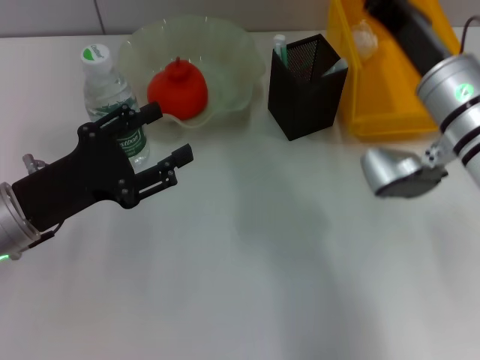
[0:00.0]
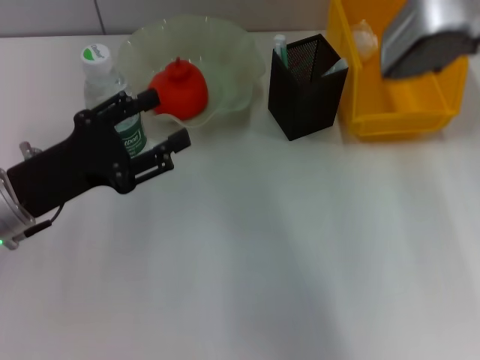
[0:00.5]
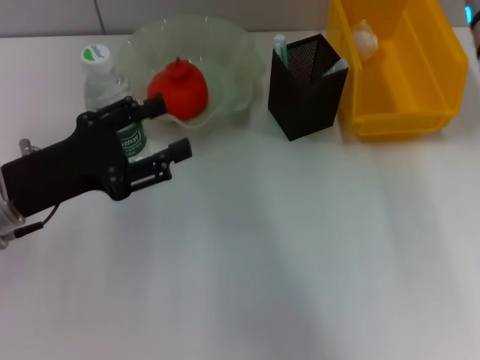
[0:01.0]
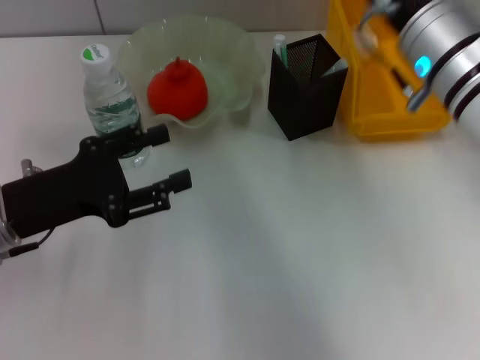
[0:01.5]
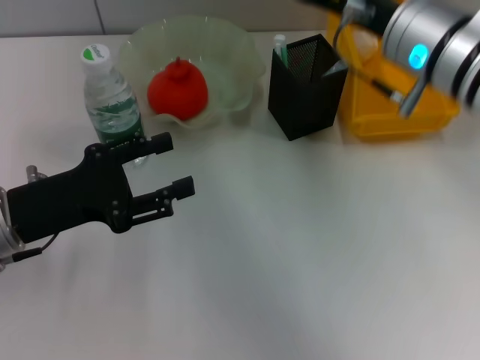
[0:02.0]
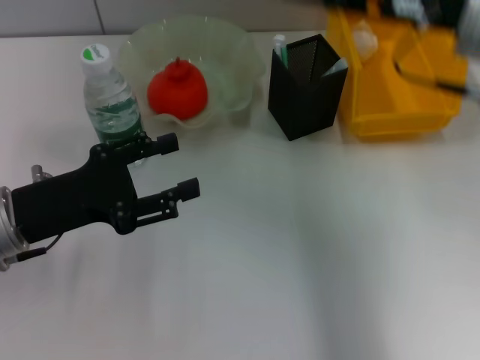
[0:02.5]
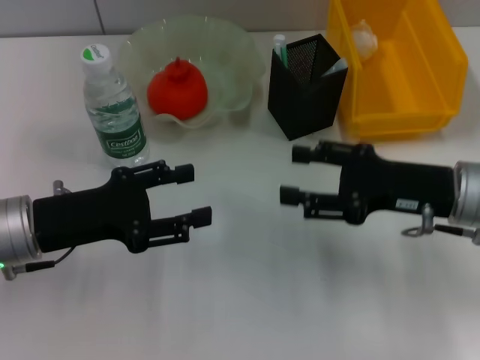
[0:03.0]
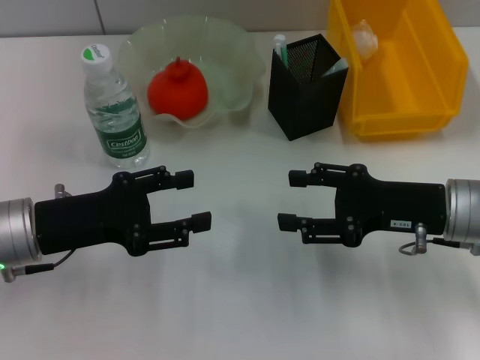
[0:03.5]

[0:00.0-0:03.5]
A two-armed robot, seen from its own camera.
0:00.0 to 0:02.0: The right gripper goes roughly 10 cm upward, and opens its fingers.
0:02.0 to 0:03.5: The right gripper is displaced downward and to the right by some 15 cm.

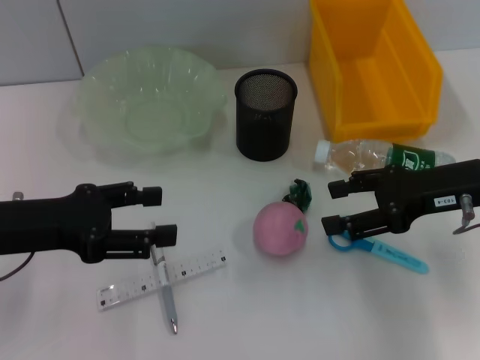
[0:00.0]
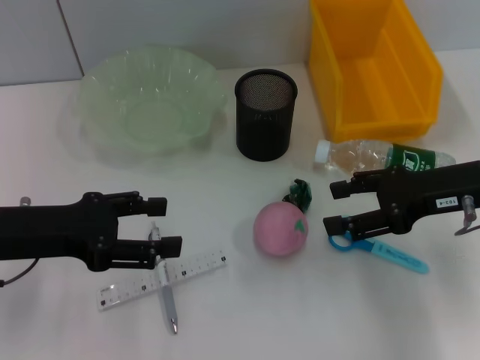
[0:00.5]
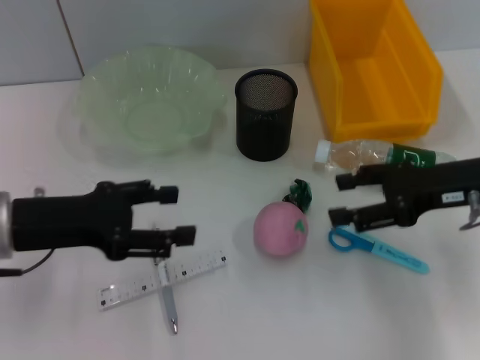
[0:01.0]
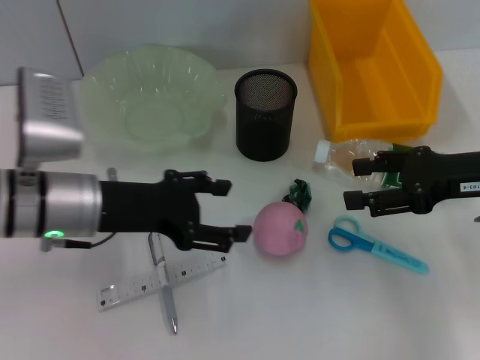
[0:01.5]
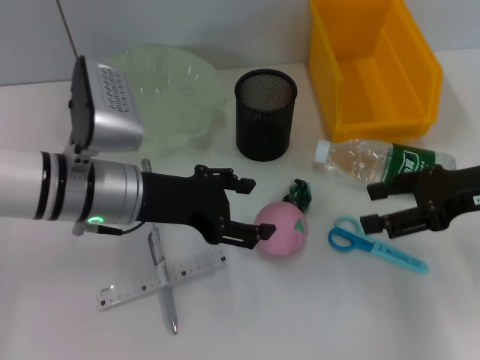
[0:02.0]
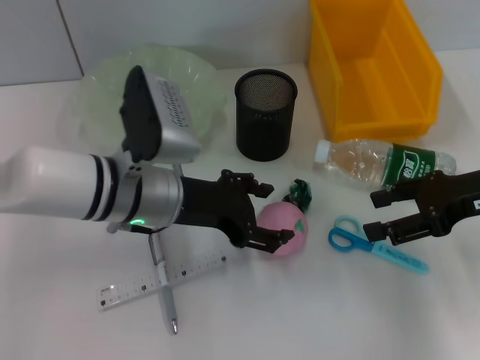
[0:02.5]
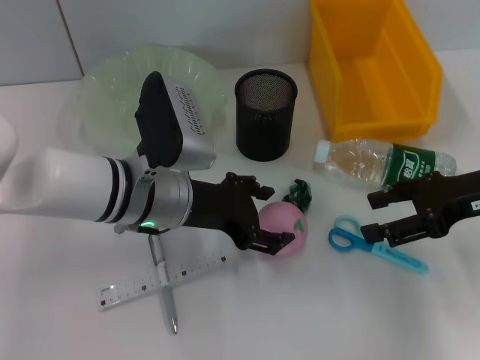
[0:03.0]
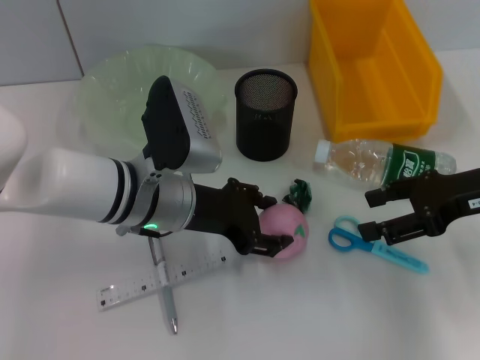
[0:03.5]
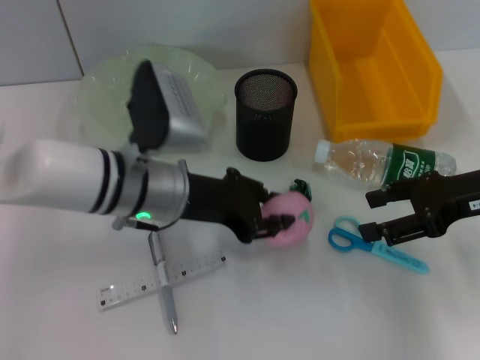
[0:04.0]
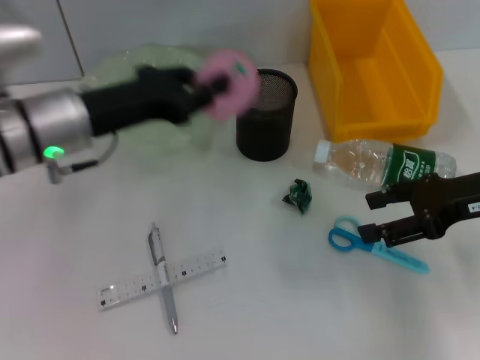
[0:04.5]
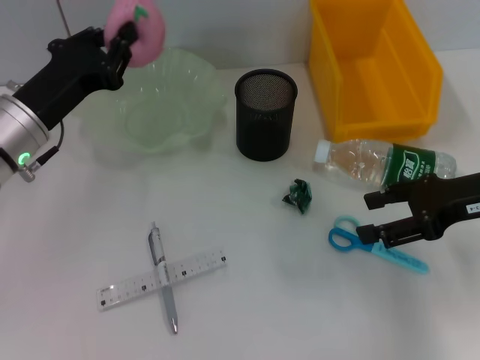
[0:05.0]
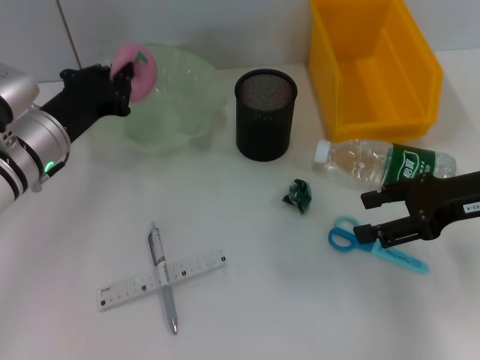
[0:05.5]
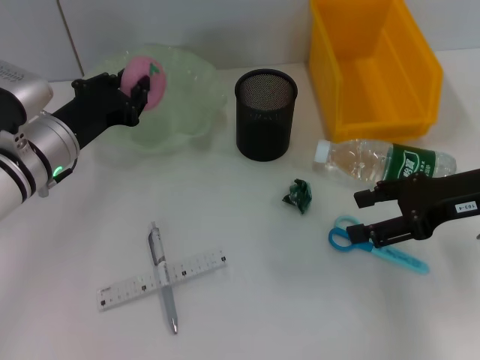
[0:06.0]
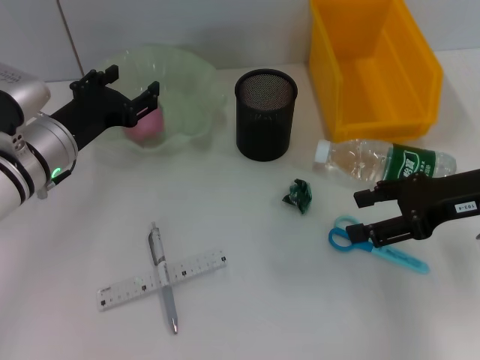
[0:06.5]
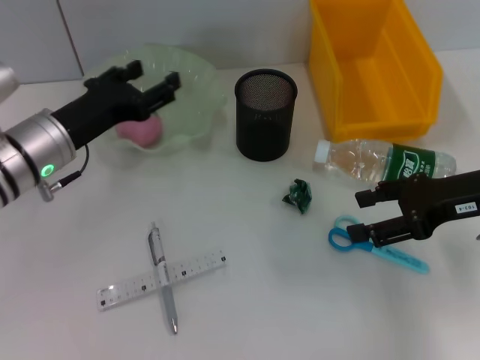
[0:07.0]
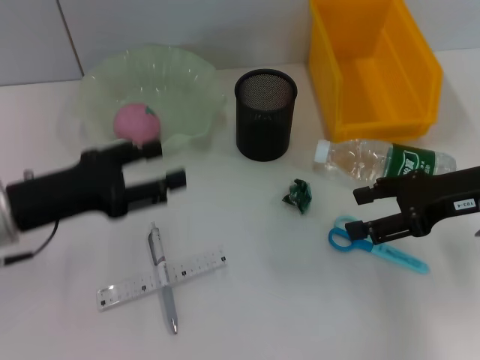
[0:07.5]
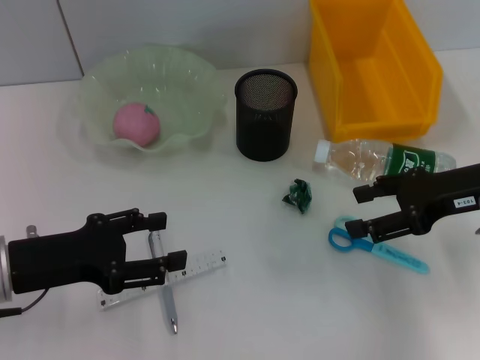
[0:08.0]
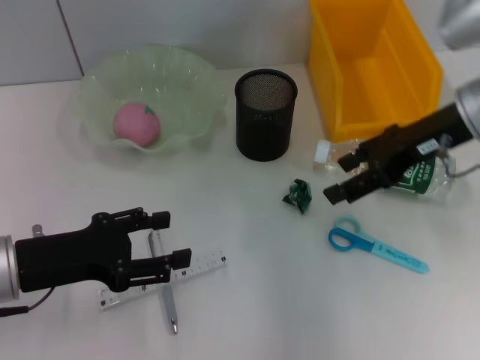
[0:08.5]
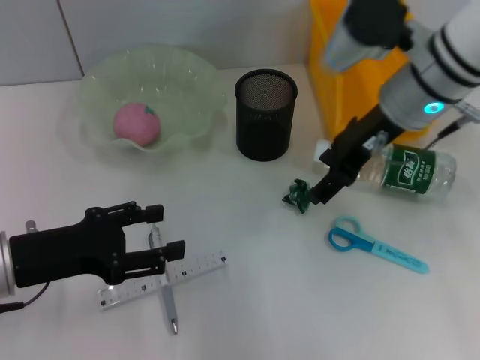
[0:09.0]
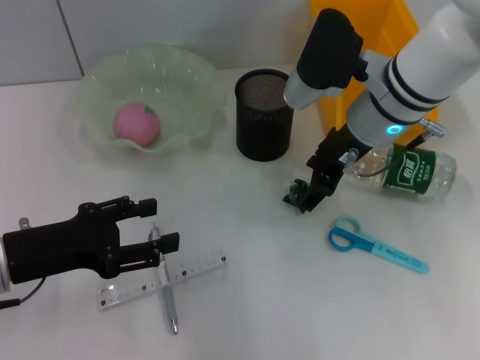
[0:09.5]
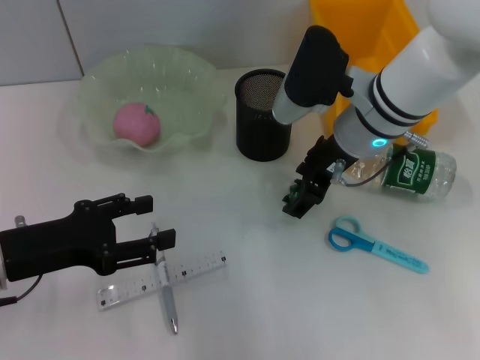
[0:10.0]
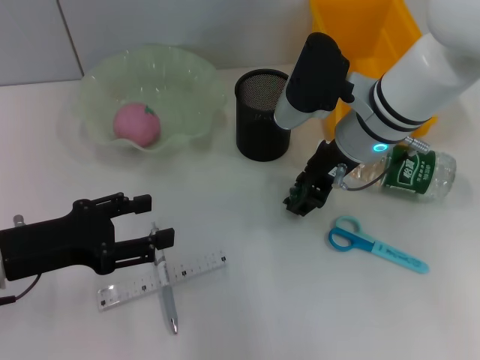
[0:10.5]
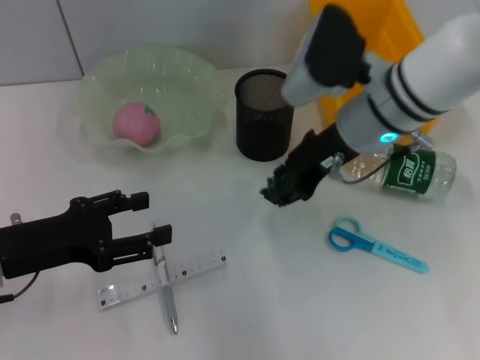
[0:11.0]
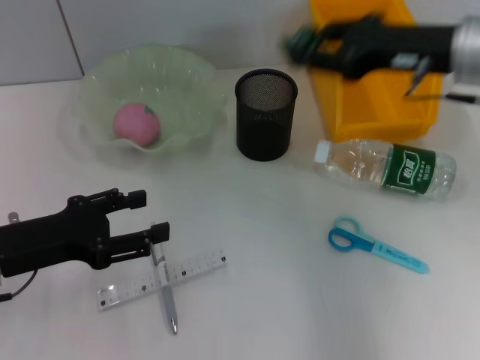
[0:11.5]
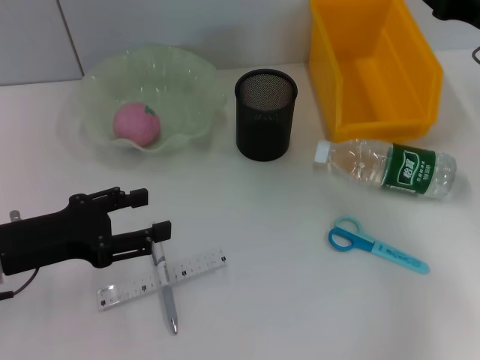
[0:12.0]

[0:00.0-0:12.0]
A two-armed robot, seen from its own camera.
Step, 0:00.0 to 0:03.5: Grab the peach with the left hand.
Step, 0:04.0 to 0:06.5: Place the peach into the fruit bowl with the left hand.
Step, 0:07.0 to 0:10.0: Grab the plastic with the right hand.
0:00.0 to 0:02.0: The left gripper moves to the right, approximately 10 cm.
0:02.0 to 0:04.0: The left gripper closes up.
0:04.0 to 0:06.0: The left gripper goes approximately 10 cm to the left, and closes up.
0:06.0 to 0:08.0: The left gripper moves backward, about 10 cm, and opens up.
0:08.0 to 0:10.0: The right gripper is displaced to the left and forward by roughly 15 cm.
0:10.0 to 0:12.0: The right gripper moves to the right, roughly 20 cm, and closes.

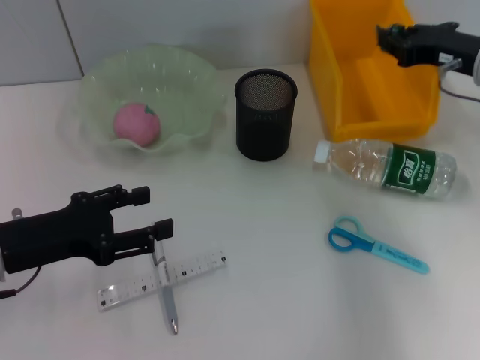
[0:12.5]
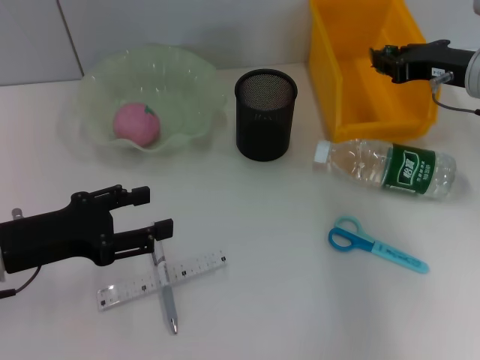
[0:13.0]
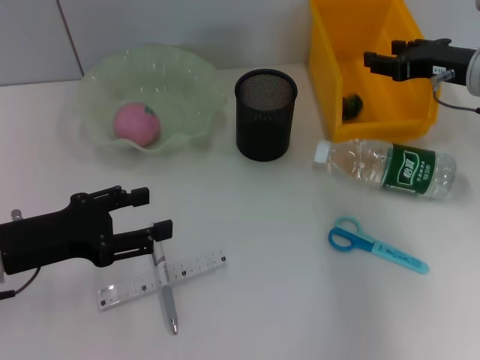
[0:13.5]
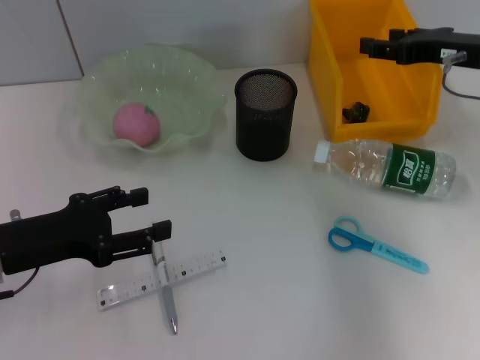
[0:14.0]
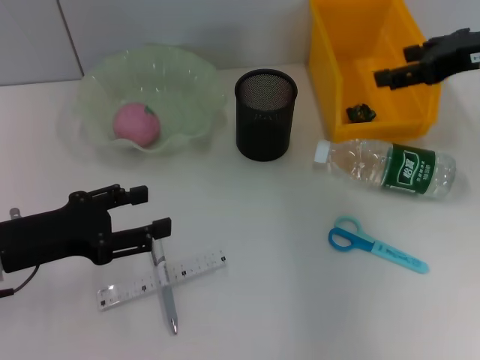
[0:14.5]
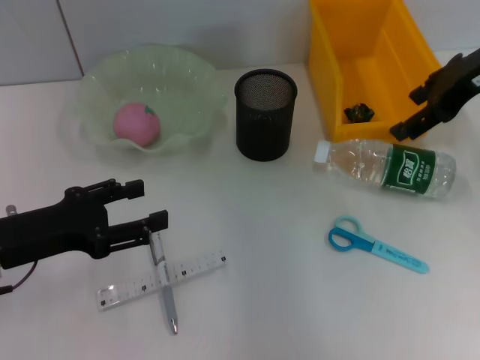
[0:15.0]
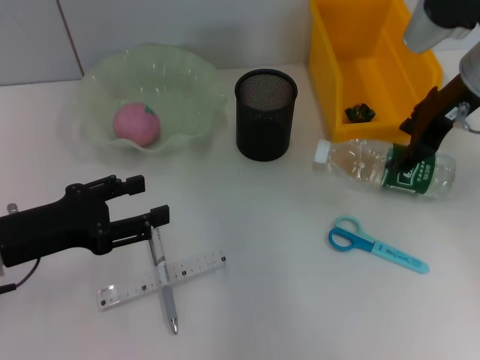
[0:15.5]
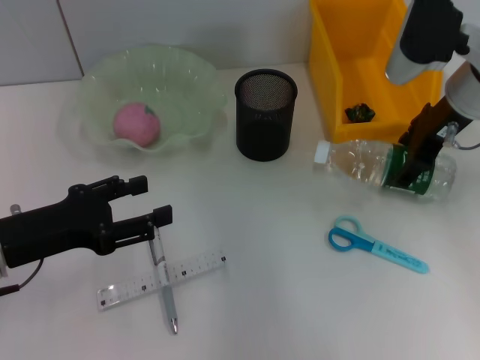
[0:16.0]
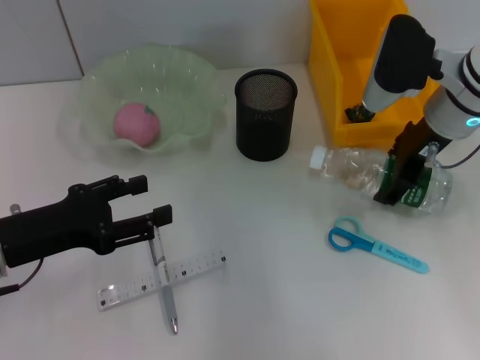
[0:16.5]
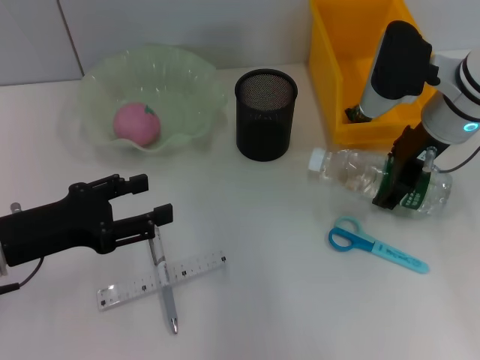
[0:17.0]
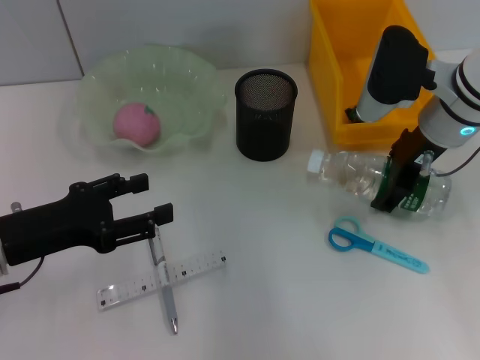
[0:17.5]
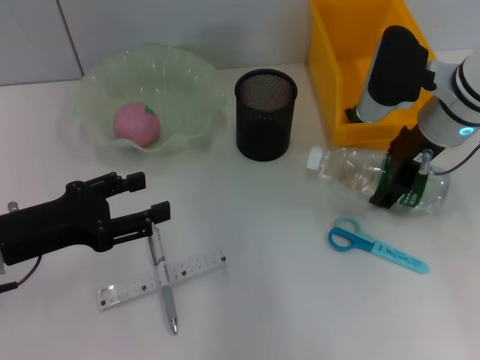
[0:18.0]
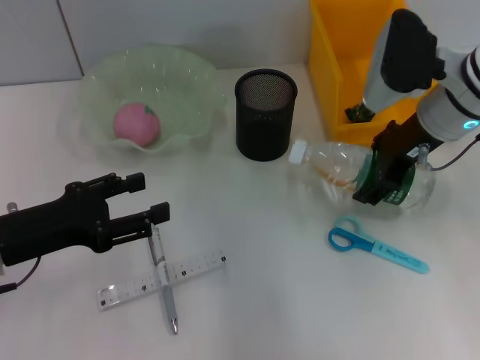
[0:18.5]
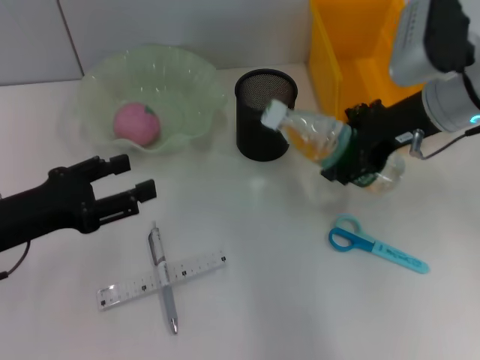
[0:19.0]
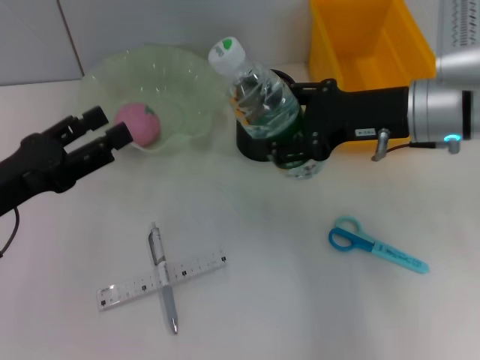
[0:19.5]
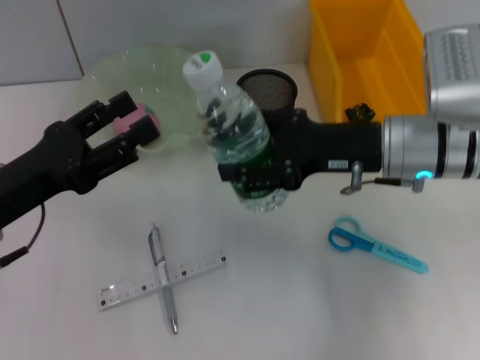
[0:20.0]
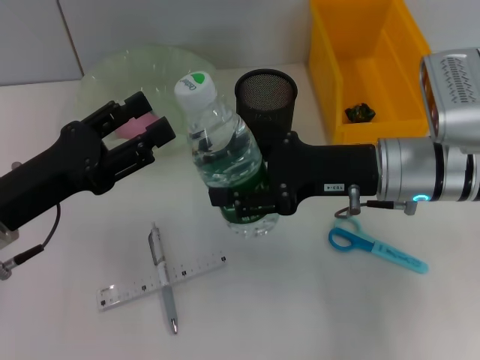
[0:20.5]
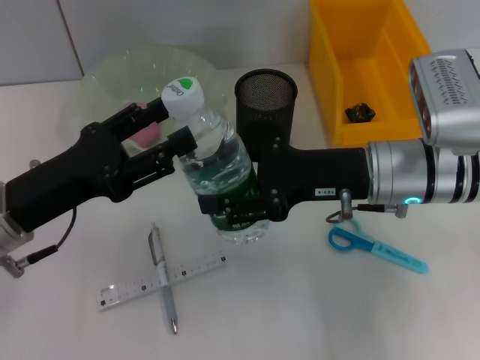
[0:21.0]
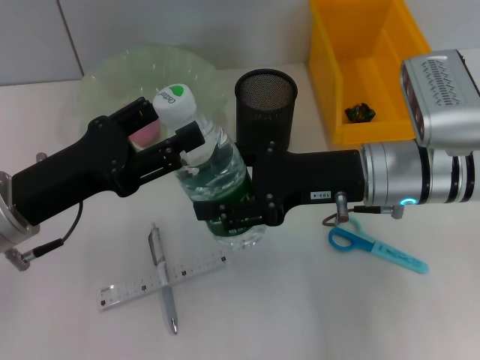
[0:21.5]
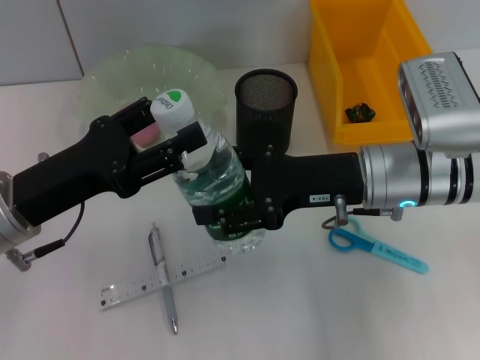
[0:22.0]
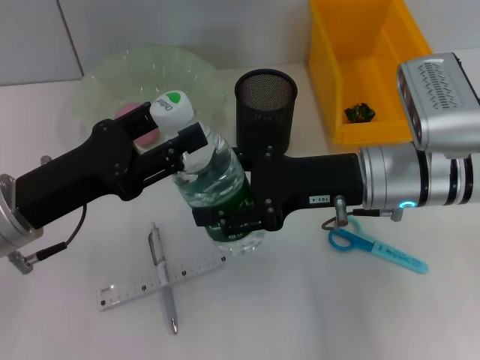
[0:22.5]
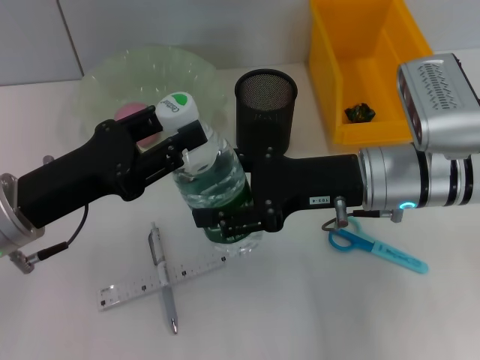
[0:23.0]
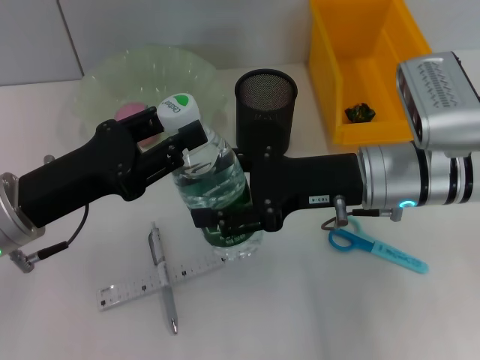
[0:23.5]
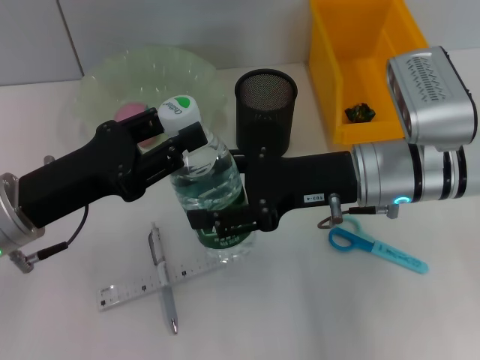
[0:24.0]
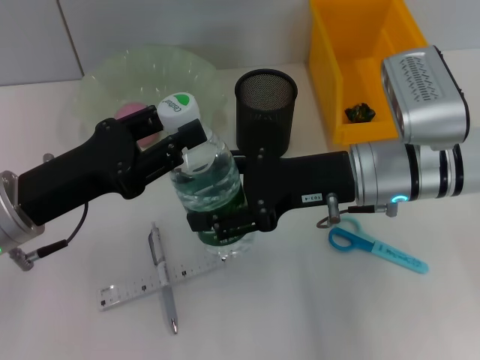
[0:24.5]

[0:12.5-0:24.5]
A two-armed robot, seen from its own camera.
Step, 0:14.5 to 0:17.5: Grab the water bottle with the right hand.
0:12.5 to 0:14.5: The right gripper travels upward by approximately 5 cm, and opens up.
0:14.5 to 0:16.5: The right gripper is displaced to the left and downward by about 10 cm.
0:16.5 to 0:18.5: The grippers stay close to where they were, moving slightly.
0:18.5 to 0:20.5: The right gripper goes approximately 5 cm backward.
0:20.5 to 0:22.5: The grippers stay close to where they were, moving slightly.
0:22.5 to 0:24.5: Both grippers stay about where they are.
